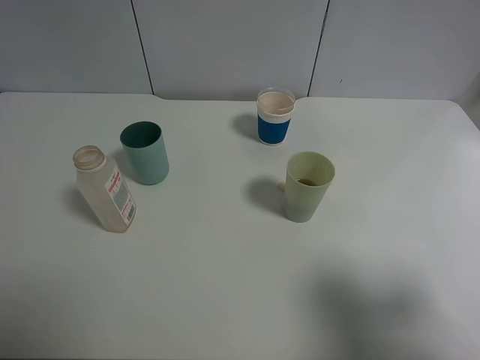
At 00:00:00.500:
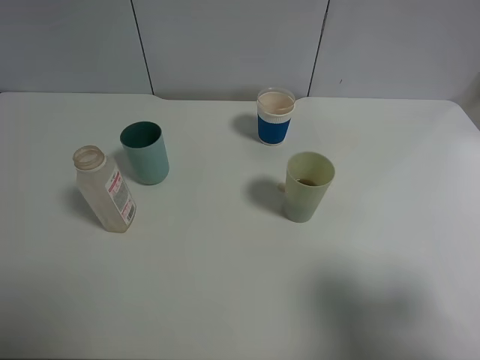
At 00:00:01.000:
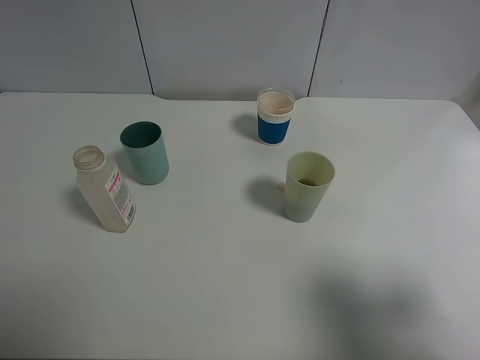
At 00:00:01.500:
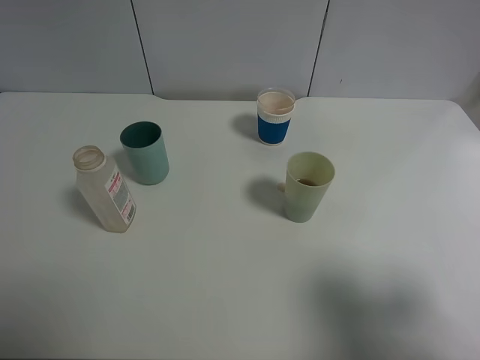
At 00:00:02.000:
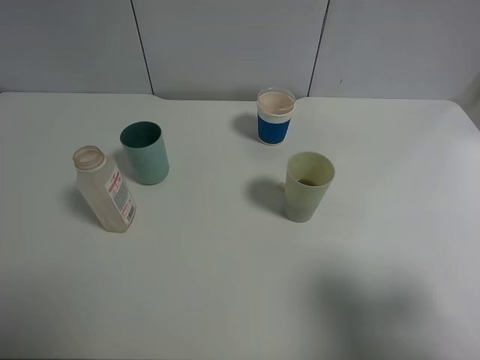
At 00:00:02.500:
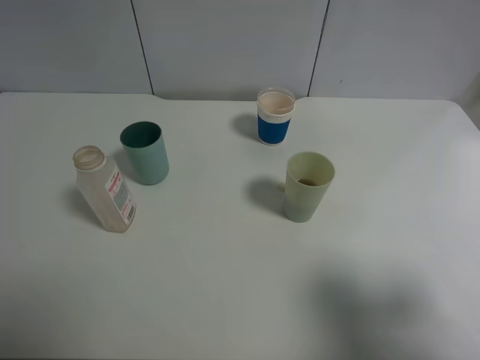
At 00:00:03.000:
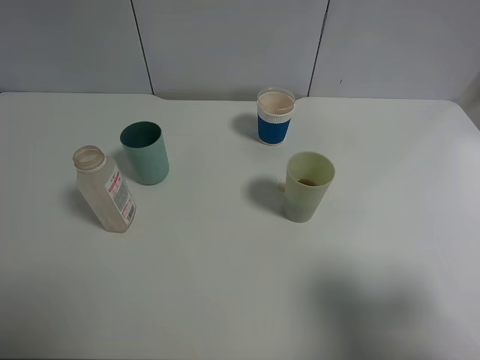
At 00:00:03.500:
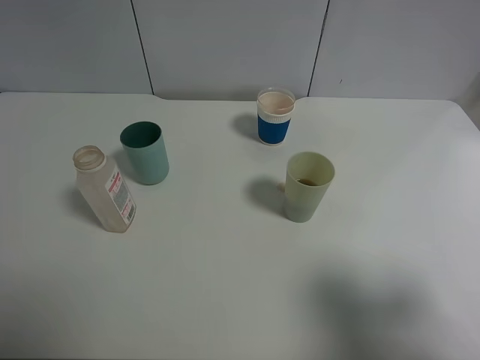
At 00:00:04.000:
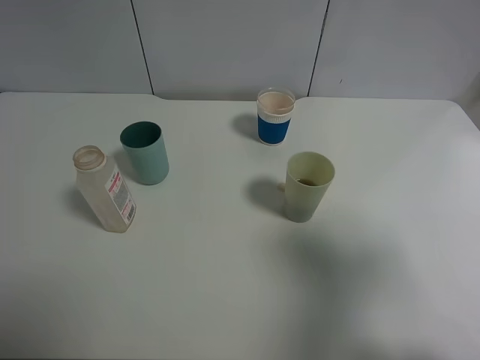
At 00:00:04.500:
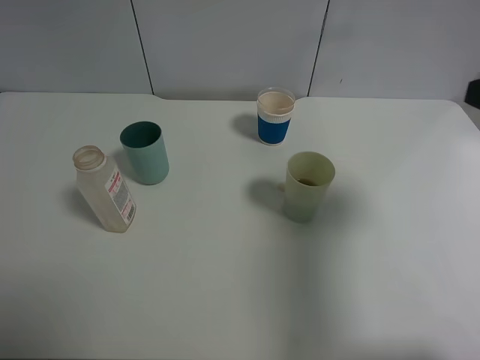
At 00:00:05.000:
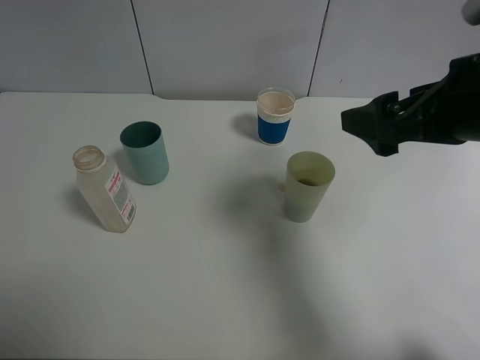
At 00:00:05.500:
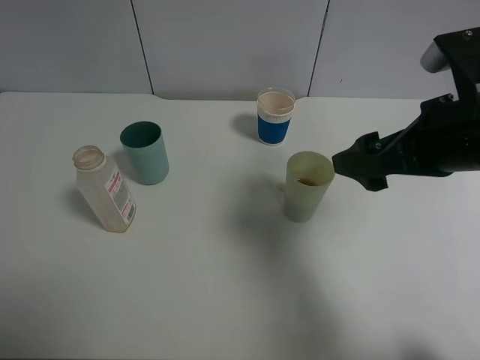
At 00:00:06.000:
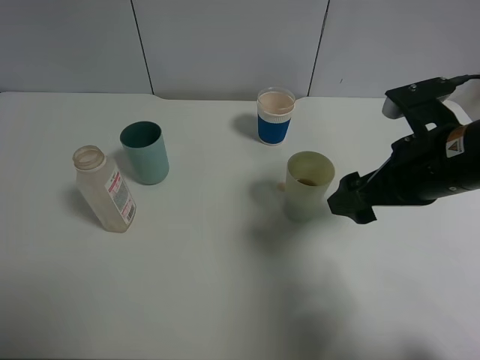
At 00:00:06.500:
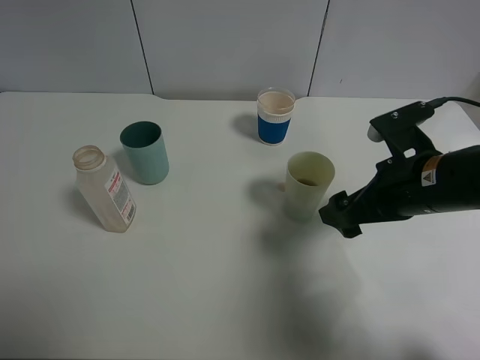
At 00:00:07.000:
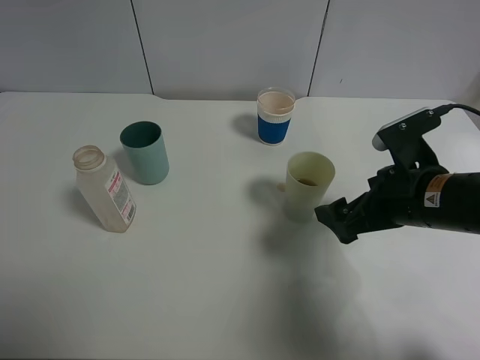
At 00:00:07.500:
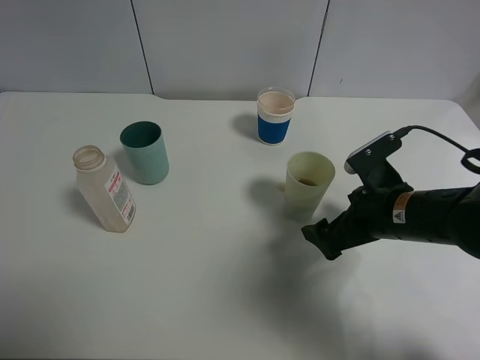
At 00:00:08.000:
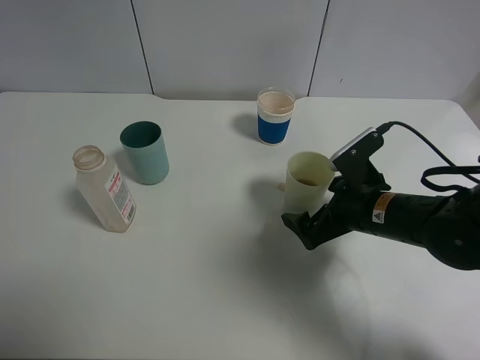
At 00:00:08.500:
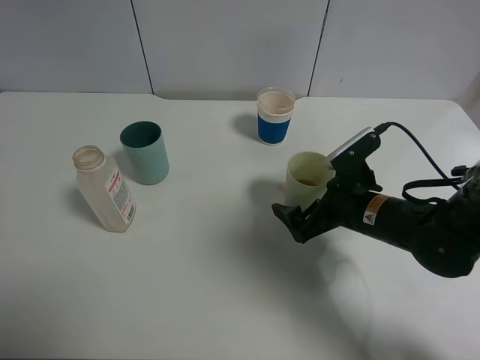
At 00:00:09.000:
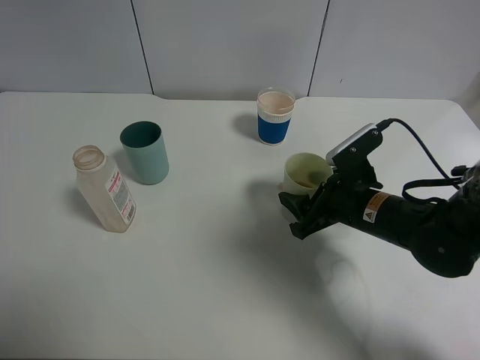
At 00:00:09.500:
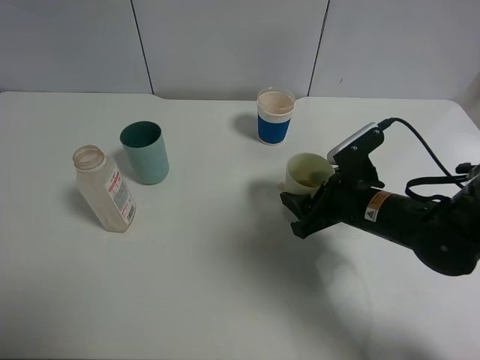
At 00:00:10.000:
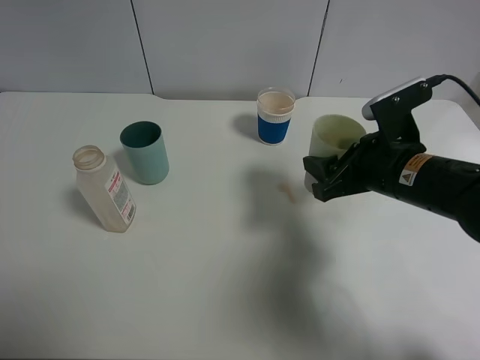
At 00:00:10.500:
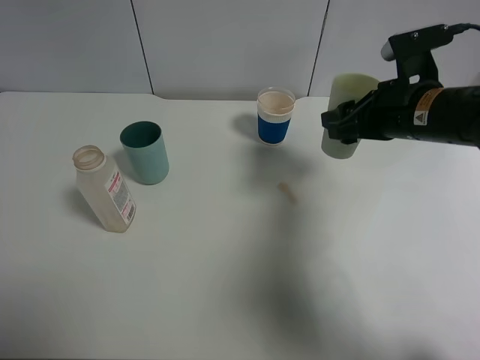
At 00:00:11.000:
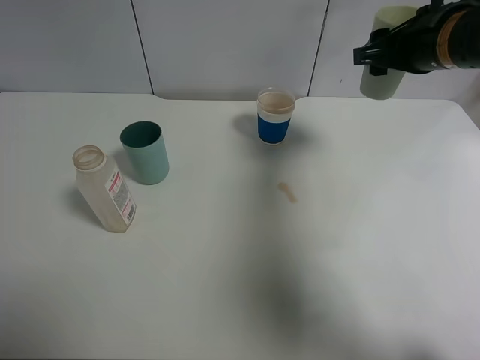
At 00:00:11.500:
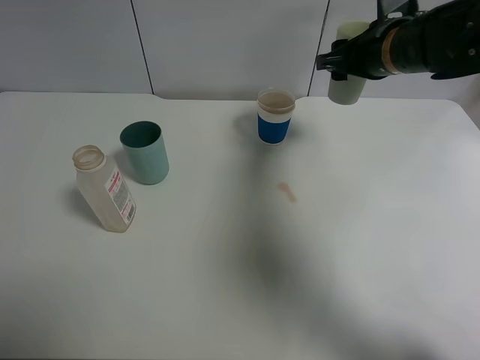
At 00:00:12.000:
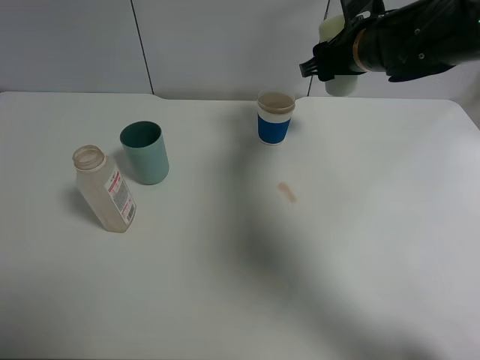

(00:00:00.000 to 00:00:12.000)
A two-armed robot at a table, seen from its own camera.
Task of the whole recording: use a clamp to hold the bottle of the drink, pour the beverage into a random cup, then clamp the cup containing the drink and pour the drink into another random cup.
Step, 00:00:00.000 - 00:00:11.000: Pick up the green plastic cup bottle with right gripper.
00:00:02.000 - 00:00:04.000: The right gripper goes about 5 cm forward.
00:00:04.000 - 00:00:06.000: The right gripper is displaced forward, to the left and downward by roughly 20 cm.
00:00:06.000 - 00:00:08.000: The right gripper goes roughly 10 cm downward.
00:00:08.000 - 00:00:10.000: The right gripper moves upward, about 5 cm, and closes its fingers.
00:00:10.000 - 00:00:12.000: The right gripper travels forward and upward by some 15 cm.

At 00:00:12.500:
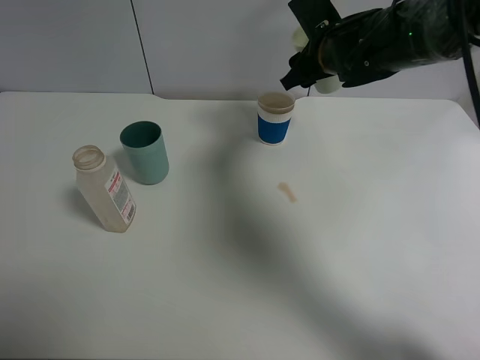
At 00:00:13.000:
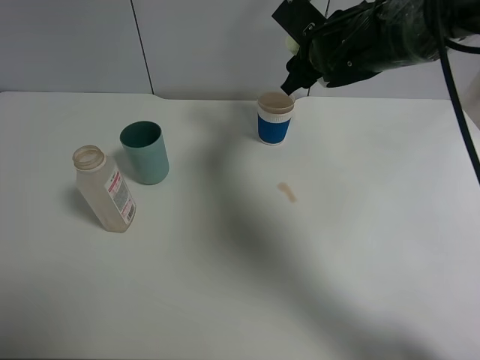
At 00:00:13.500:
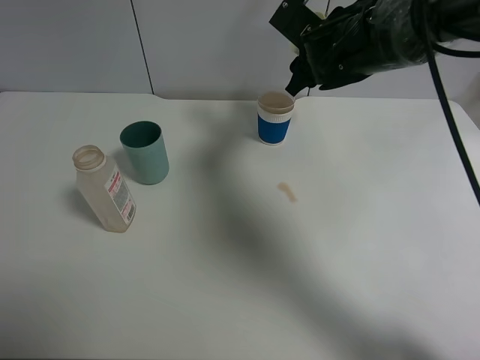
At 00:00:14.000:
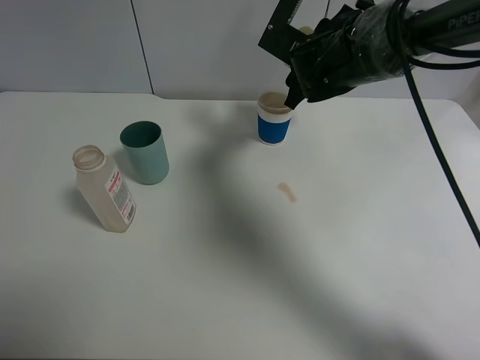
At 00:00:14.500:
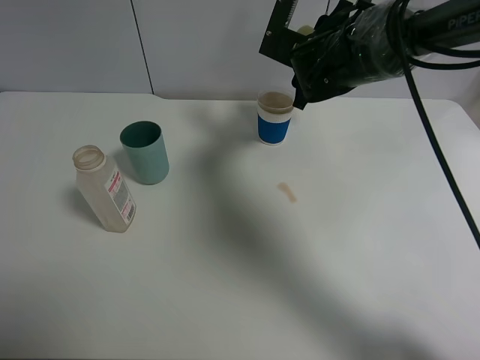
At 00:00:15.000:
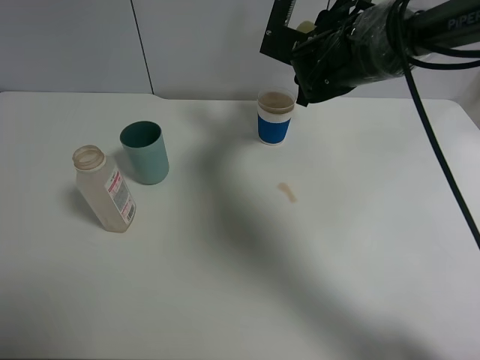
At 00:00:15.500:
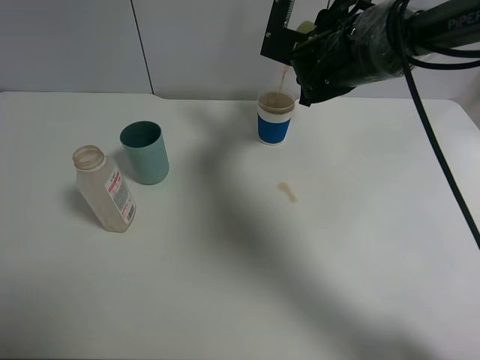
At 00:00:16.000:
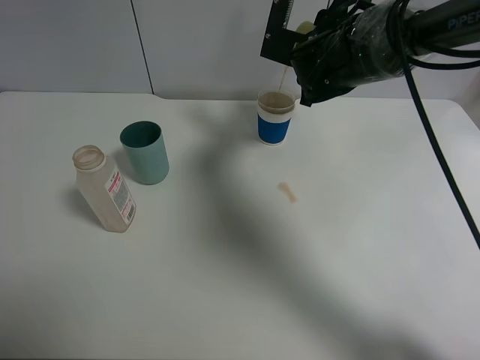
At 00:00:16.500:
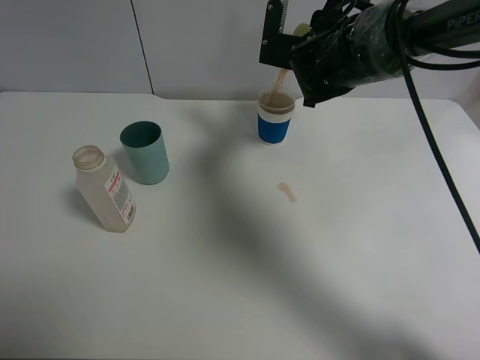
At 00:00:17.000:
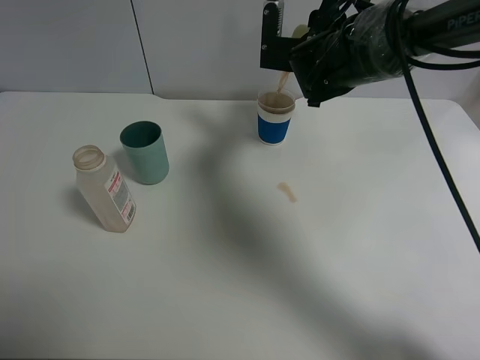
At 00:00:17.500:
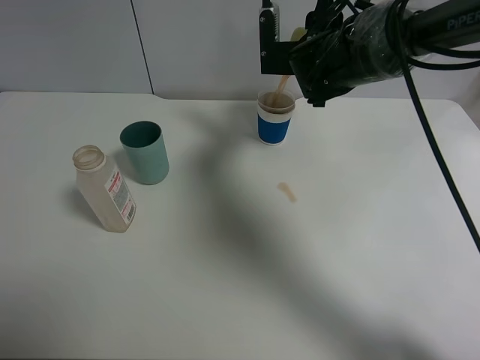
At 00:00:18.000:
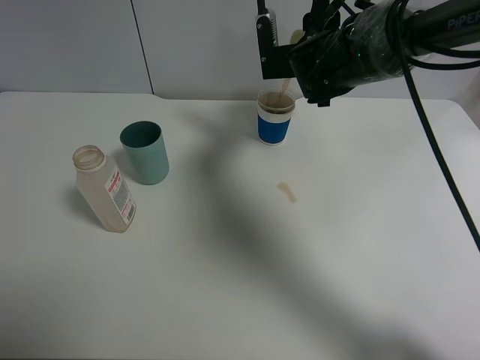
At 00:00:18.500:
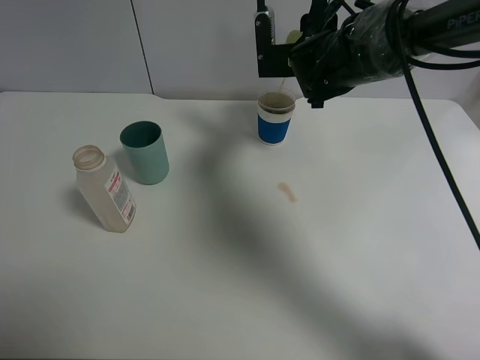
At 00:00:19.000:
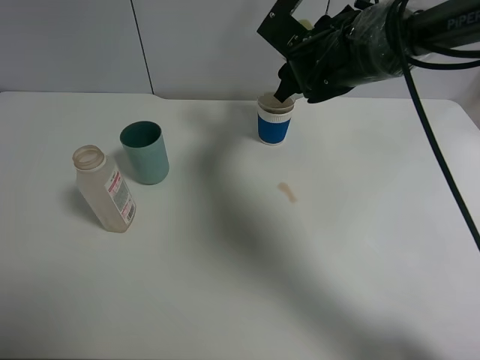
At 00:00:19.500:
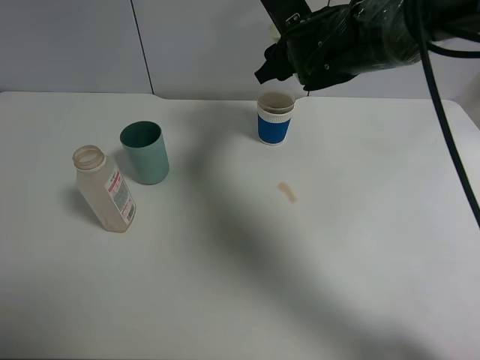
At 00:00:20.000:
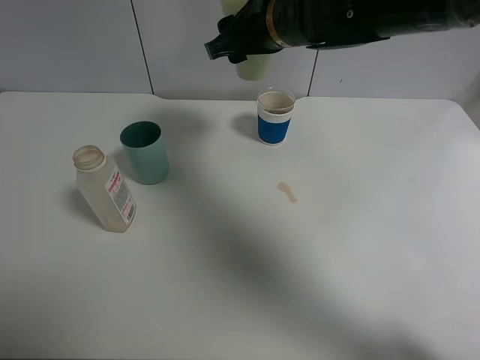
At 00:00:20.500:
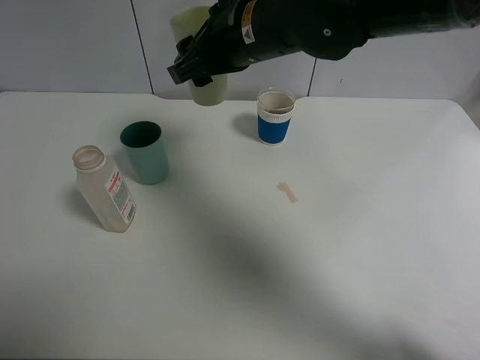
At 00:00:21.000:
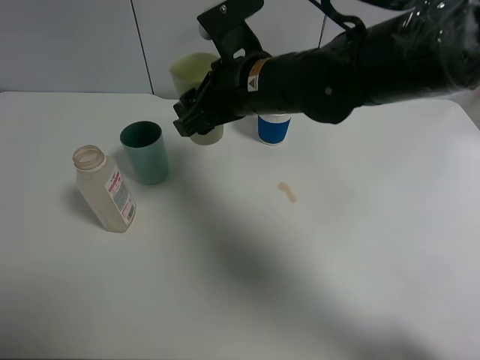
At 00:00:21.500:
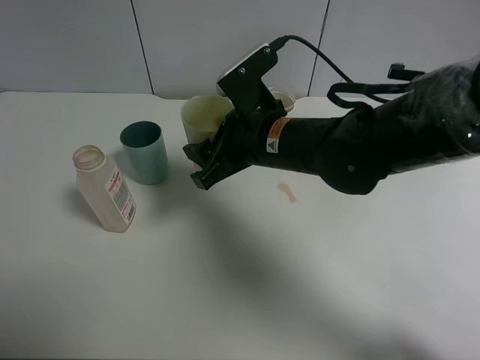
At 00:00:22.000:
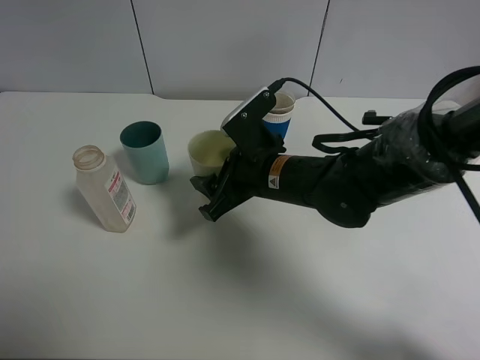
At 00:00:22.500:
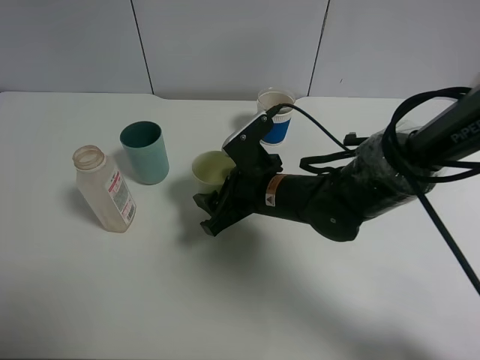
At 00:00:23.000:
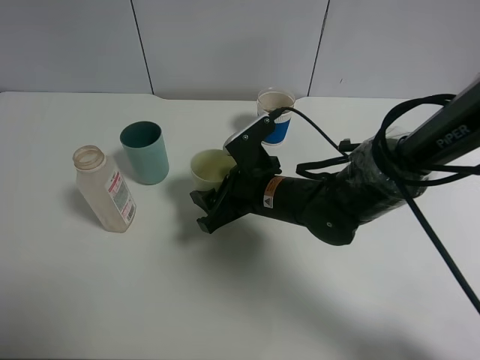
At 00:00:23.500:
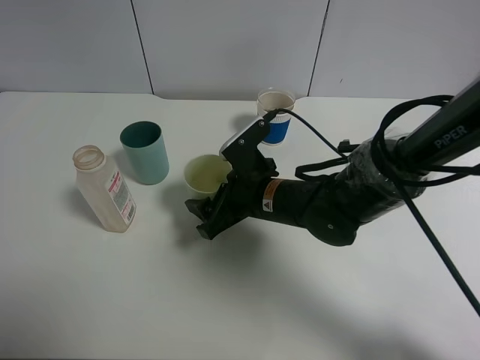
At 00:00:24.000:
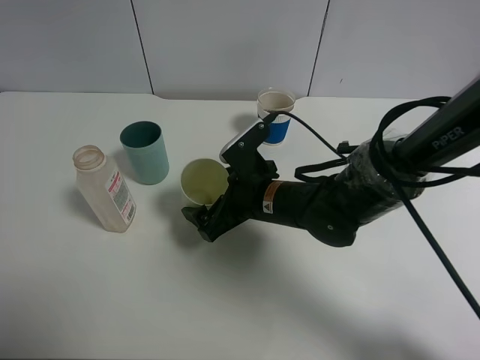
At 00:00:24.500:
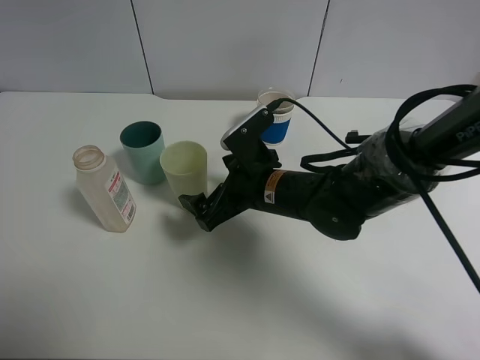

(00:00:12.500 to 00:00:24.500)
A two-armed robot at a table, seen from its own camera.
Task of the whole recording: use a clamp to hold the bottle of the drink, pour the beverage into a random cup, then clamp the cup containing the drink and pour the drink into another random cup.
Step, 00:00:12.500 - 00:00:19.000: Pour the drink into the paper cup with right gripper.
Step, 00:00:19.500 - 00:00:24.000: Place the green plastic cup on the table with right gripper.
00:00:14.500 - 00:00:16.500: The grippers make only small movements.
00:00:16.500 - 00:00:18.500: There are only small adjustments of the grippers.
00:00:18.500 - 00:00:20.500: The right gripper goes some 15 cm to the left, backward and upward.
00:00:20.500 - 00:00:22.500: The right gripper is displaced downward by about 20 cm.
00:00:22.500 - 00:00:24.500: The right gripper opens its fingers.

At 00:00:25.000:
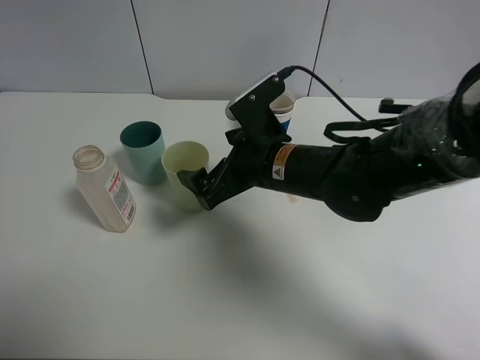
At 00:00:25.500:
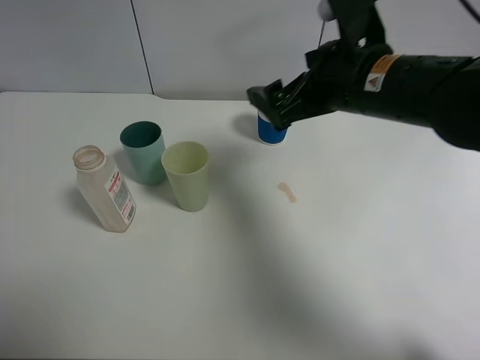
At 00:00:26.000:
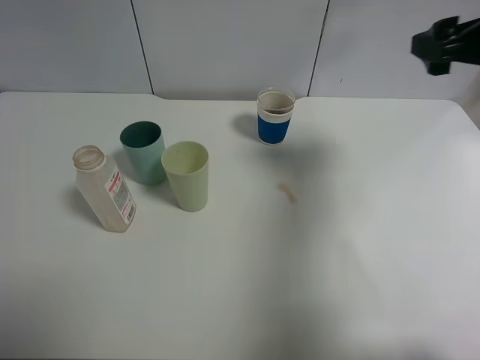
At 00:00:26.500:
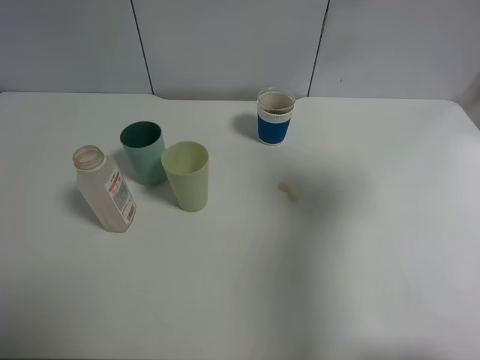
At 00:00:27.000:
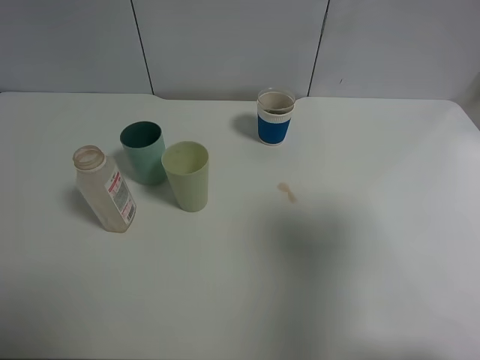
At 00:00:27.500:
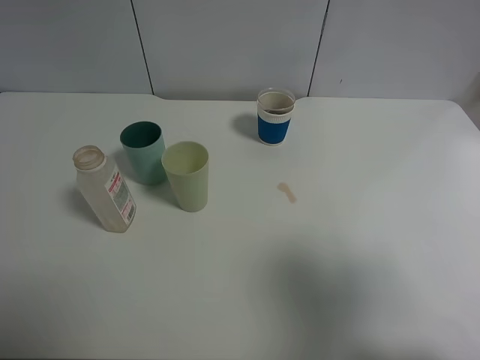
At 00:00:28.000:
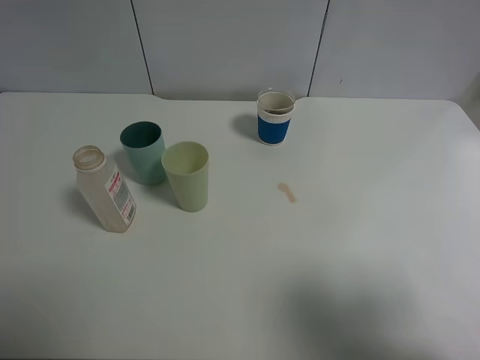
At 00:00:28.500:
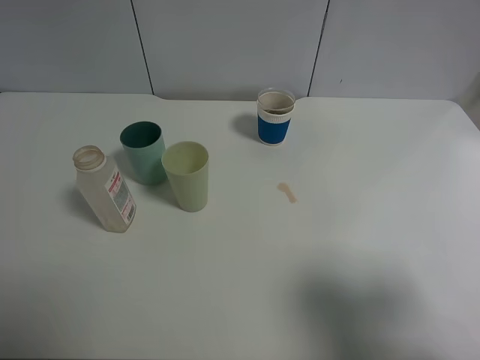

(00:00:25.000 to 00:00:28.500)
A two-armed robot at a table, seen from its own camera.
Task of the whole recording: use a clamp to hold the bottle of the drink, pour the beverage into a random cup, then clamp the cup containing the drink and pour the drink into another random cup.
00:00:25.000 - 00:00:27.000: The right gripper heads to the right, upward and backward, covering roughly 35 cm.
00:00:27.000 - 00:00:28.500: The right gripper moves downward and backward, roughly 10 cm.
